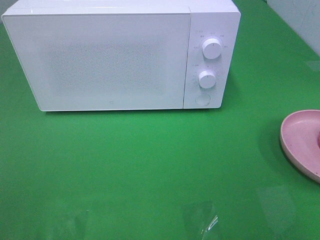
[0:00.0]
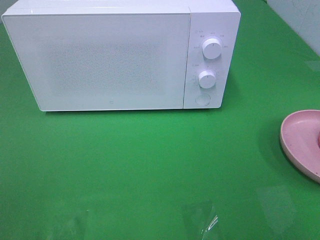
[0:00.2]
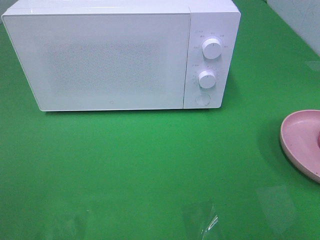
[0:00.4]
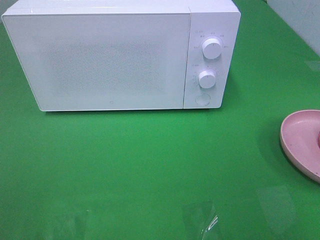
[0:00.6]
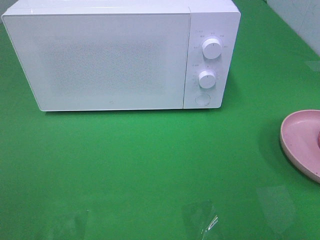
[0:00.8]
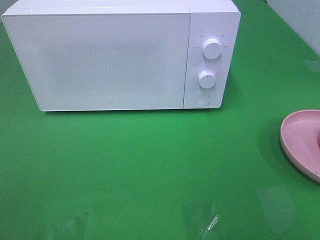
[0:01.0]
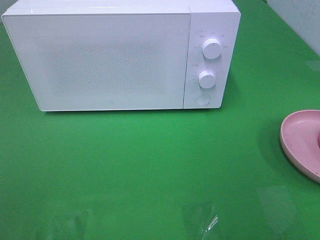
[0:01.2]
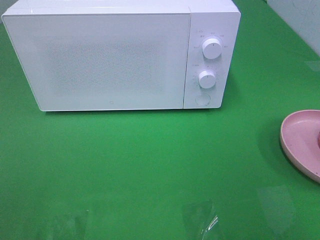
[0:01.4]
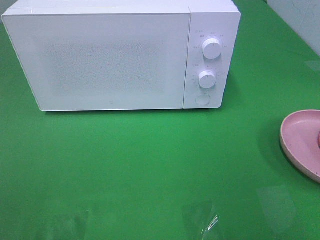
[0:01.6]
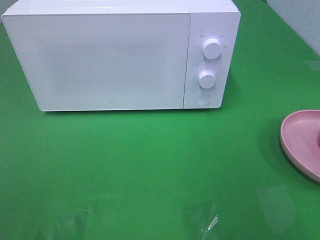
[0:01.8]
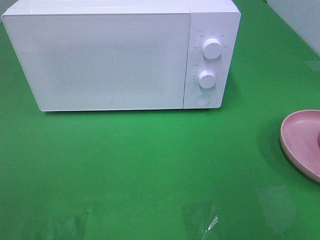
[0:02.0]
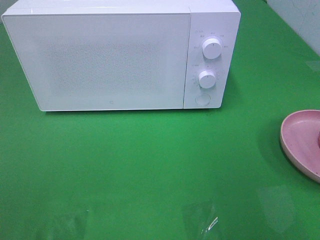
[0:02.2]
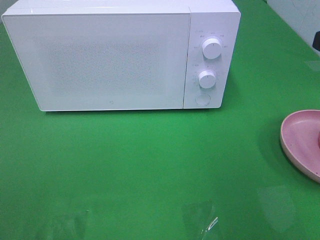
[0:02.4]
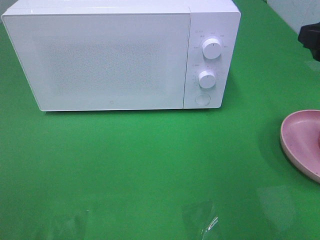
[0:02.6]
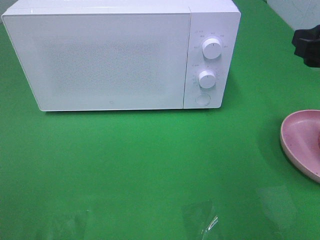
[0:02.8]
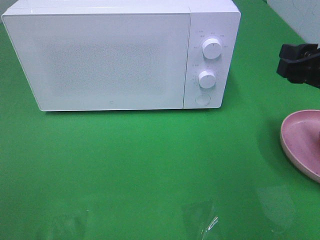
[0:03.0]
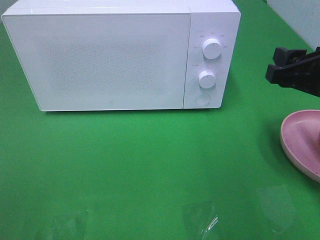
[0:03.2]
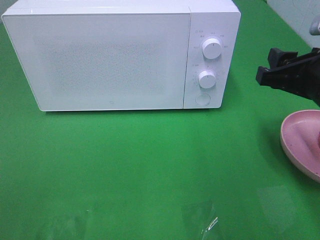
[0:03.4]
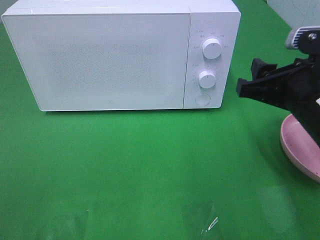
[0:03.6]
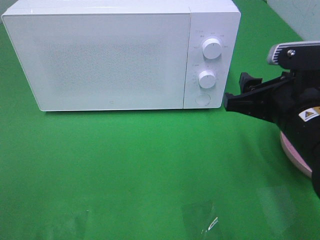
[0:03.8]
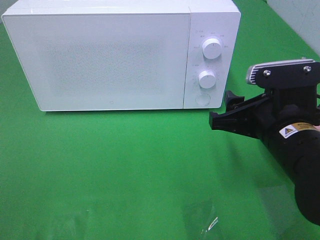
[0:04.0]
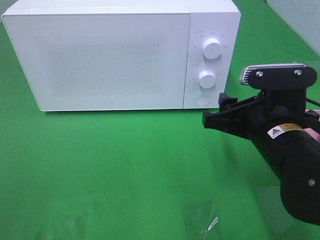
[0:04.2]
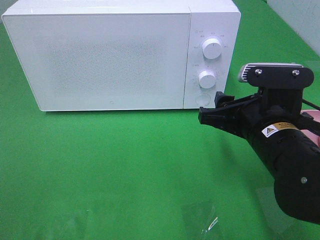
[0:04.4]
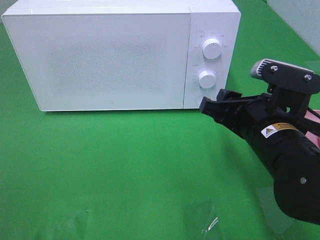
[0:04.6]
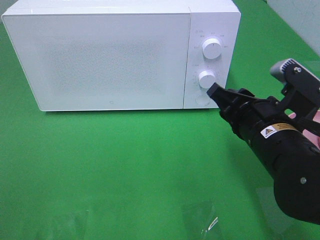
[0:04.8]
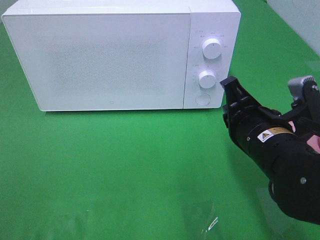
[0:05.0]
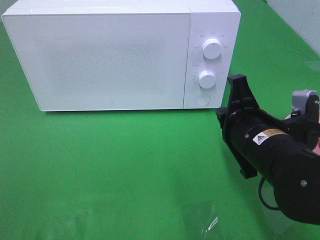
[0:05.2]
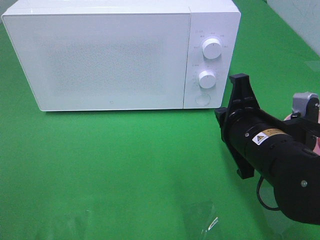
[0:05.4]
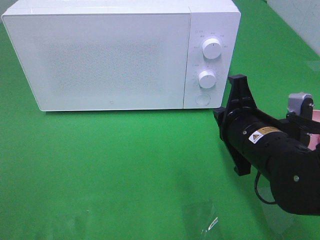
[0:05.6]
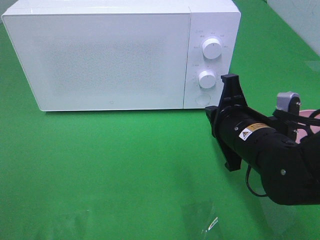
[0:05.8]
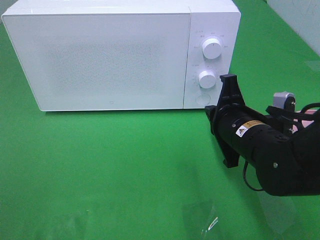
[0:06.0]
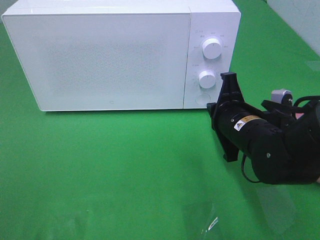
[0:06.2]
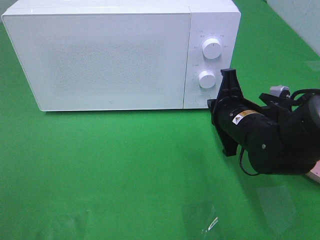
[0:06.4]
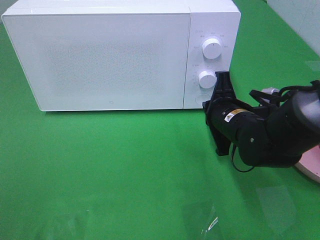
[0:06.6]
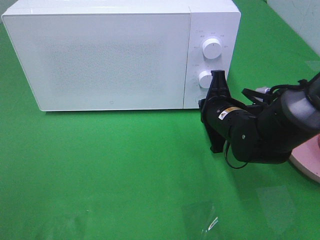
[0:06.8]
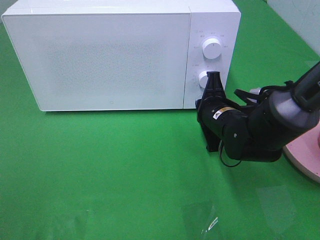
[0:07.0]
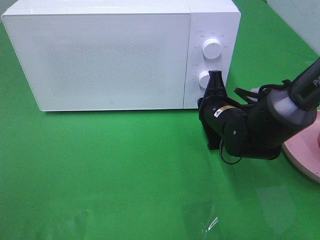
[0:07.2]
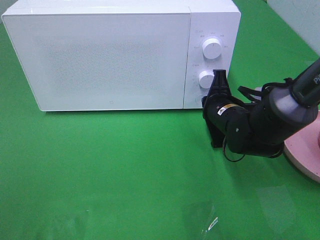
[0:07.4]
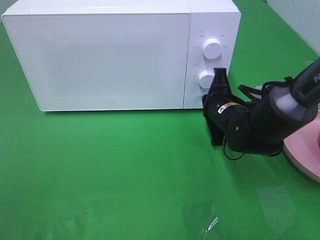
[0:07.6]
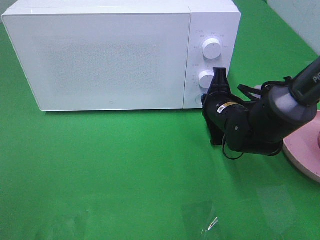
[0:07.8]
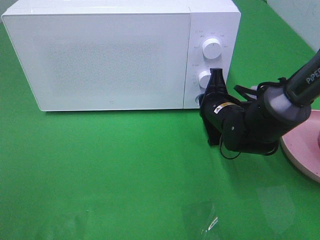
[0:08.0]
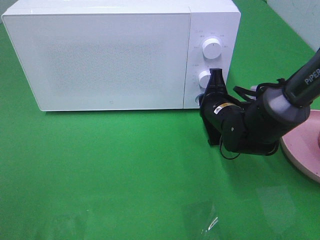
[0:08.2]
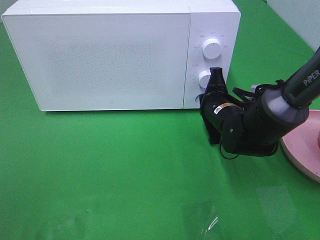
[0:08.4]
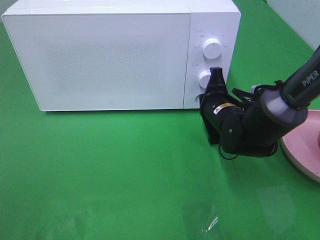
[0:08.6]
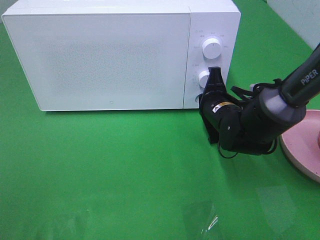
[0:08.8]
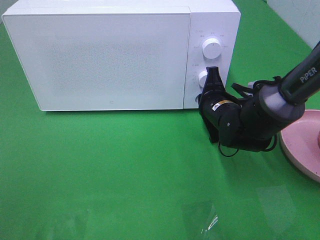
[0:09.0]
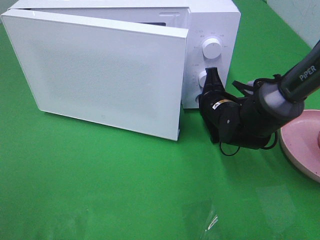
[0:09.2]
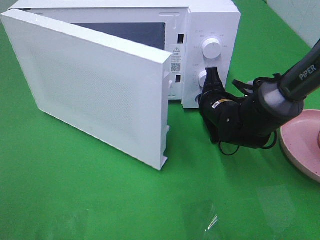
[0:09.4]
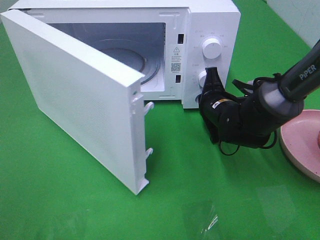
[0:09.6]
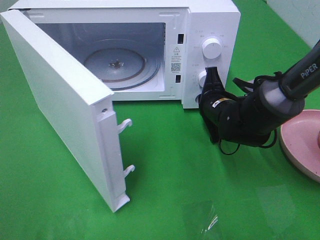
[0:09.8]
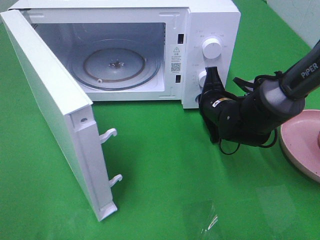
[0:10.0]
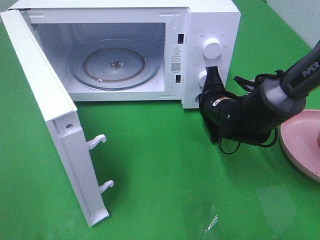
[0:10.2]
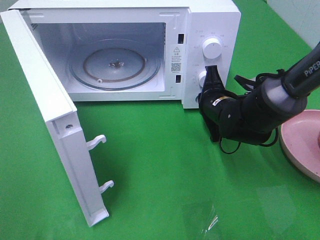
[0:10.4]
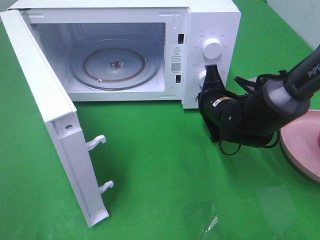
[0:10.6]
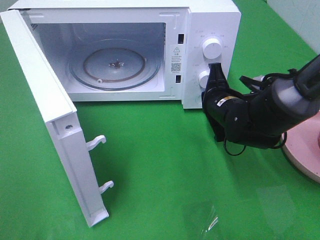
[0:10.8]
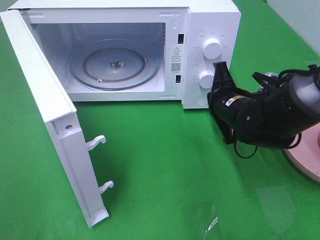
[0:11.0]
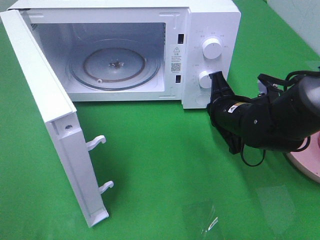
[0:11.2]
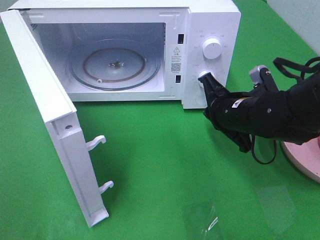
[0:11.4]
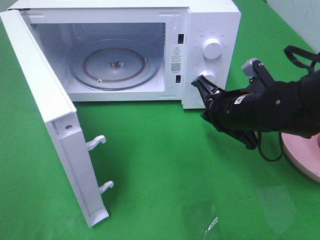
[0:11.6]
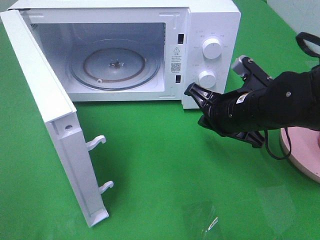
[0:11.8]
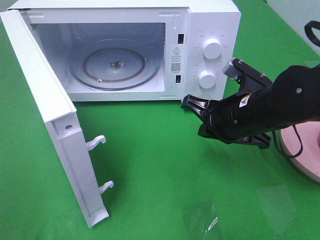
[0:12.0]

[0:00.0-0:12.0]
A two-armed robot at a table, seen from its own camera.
Task of the whole recording: Heat the burger.
Step, 0:00.0 to 0:07.8: Right hand: press the switch.
0:01.6 to 0:03.0: The right gripper shifts roughly 15 cm forward and downward.
0:03.0 to 0:04.4: The right gripper travels to the left and downward by approximately 15 cm.
0:04.4 to 0:06.0: The right gripper changes place by some 5 cm, and closes its fingers.
0:06.0 to 0:07.6: The right gripper moves forward, about 10 cm.
0:07.6 to 0:09.0: The grippers make only small movements.
0:10.4 to 0:12.0: The right gripper goes some 10 cm backward and upward.

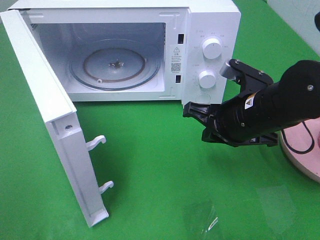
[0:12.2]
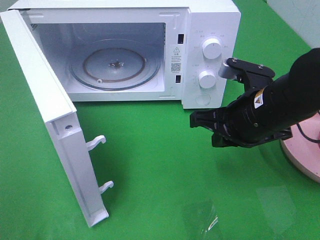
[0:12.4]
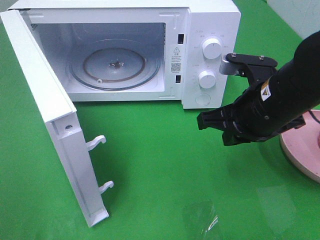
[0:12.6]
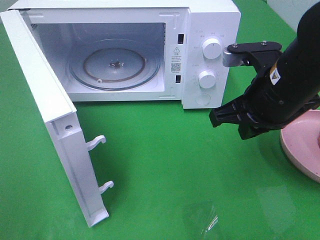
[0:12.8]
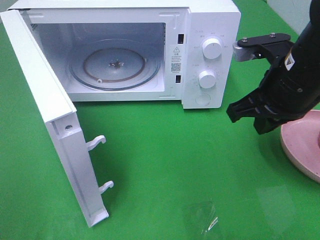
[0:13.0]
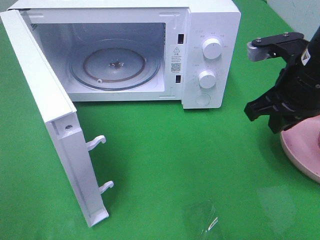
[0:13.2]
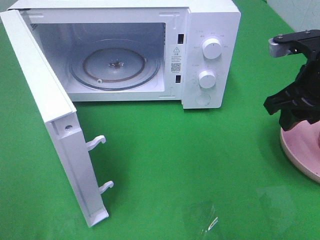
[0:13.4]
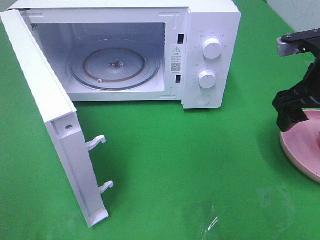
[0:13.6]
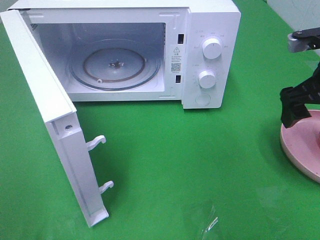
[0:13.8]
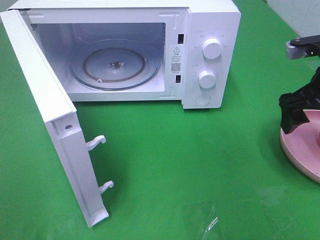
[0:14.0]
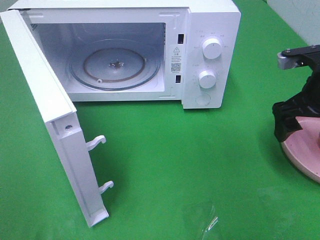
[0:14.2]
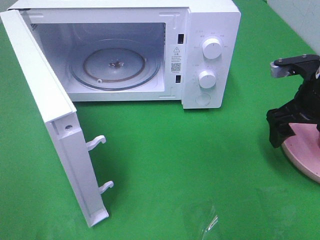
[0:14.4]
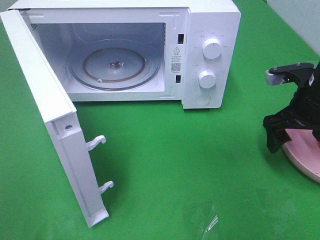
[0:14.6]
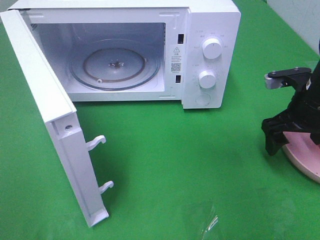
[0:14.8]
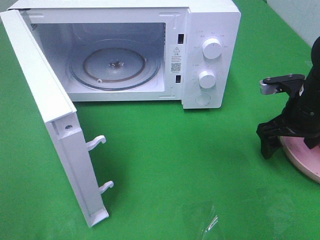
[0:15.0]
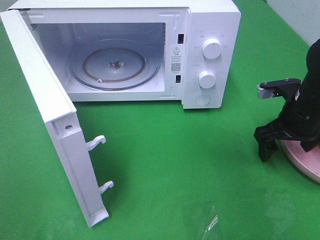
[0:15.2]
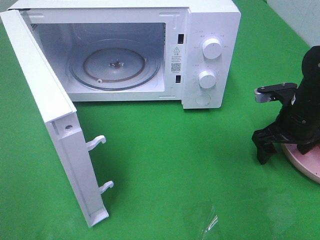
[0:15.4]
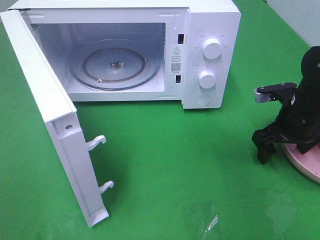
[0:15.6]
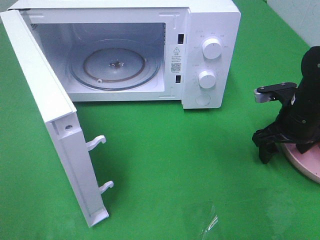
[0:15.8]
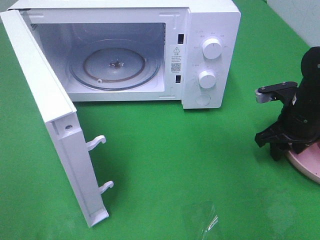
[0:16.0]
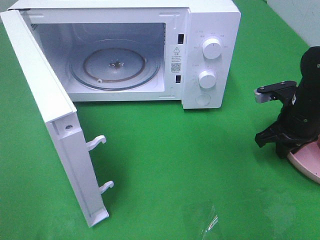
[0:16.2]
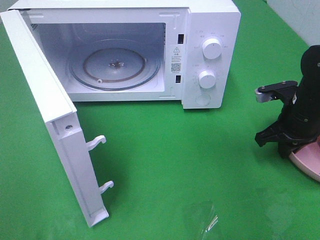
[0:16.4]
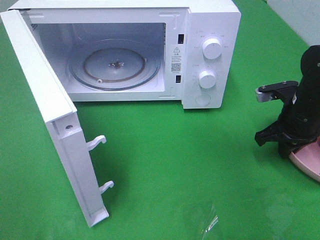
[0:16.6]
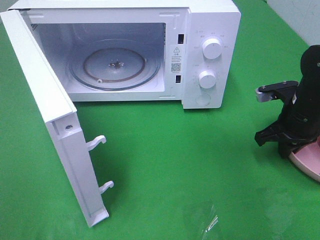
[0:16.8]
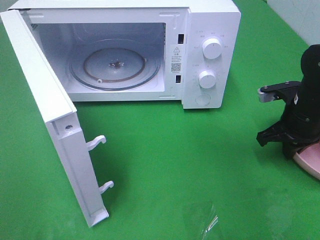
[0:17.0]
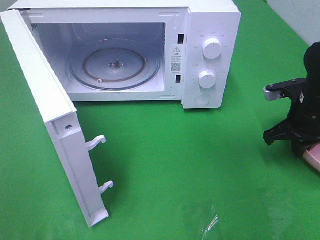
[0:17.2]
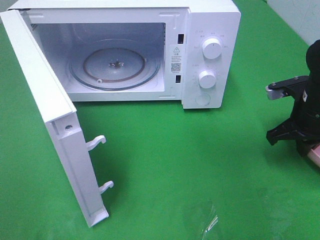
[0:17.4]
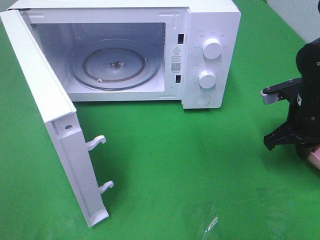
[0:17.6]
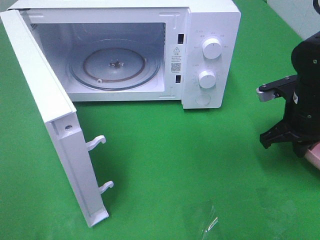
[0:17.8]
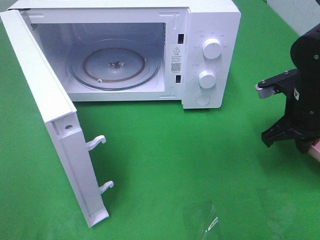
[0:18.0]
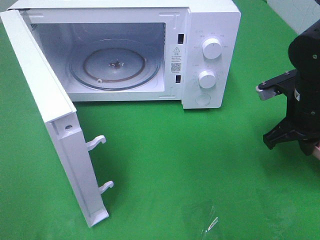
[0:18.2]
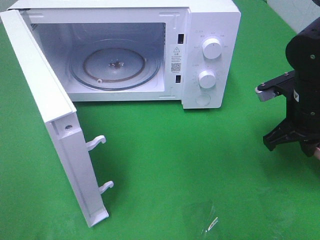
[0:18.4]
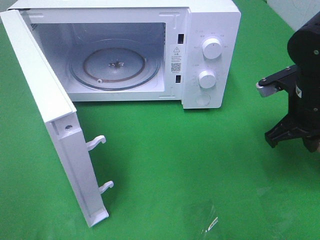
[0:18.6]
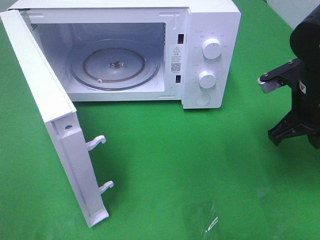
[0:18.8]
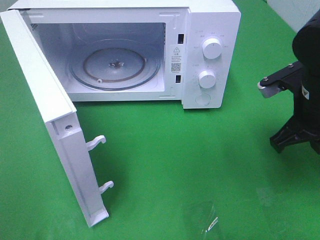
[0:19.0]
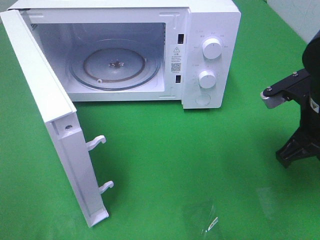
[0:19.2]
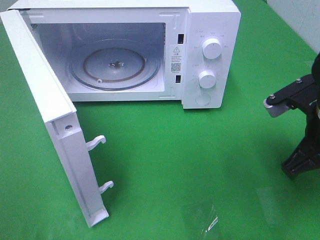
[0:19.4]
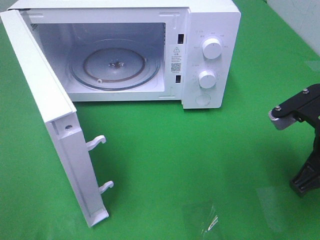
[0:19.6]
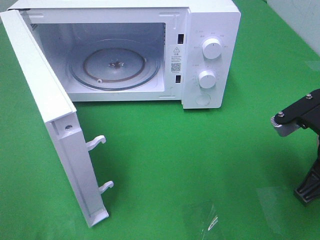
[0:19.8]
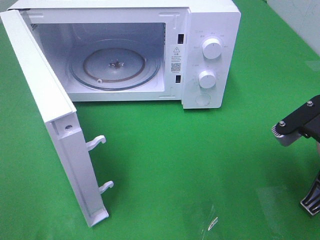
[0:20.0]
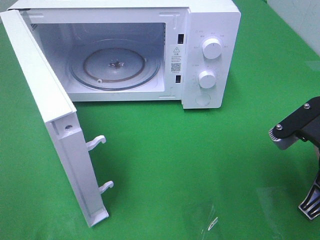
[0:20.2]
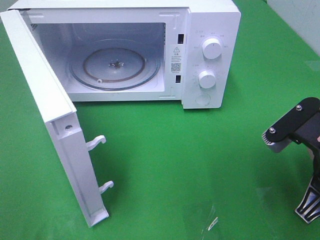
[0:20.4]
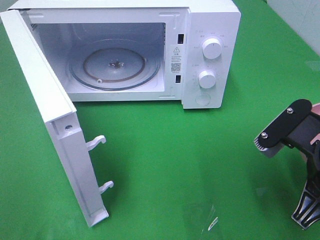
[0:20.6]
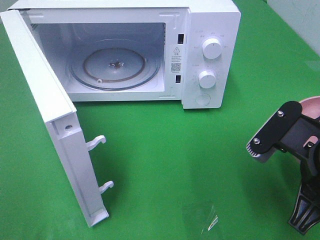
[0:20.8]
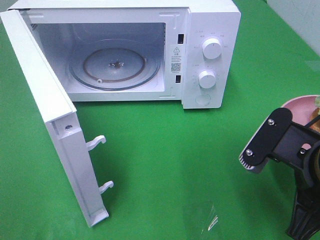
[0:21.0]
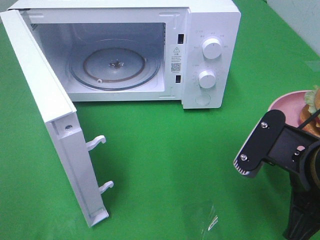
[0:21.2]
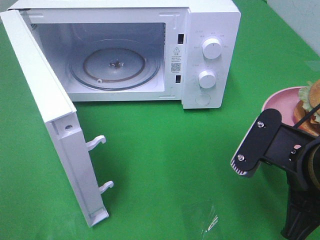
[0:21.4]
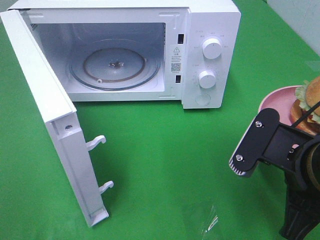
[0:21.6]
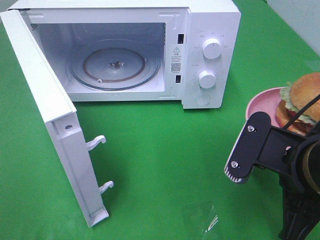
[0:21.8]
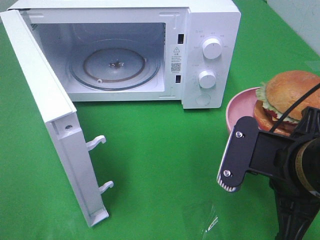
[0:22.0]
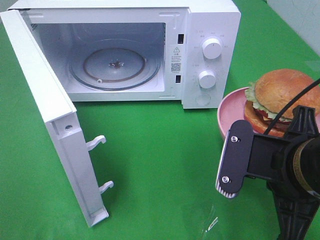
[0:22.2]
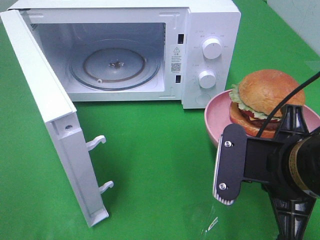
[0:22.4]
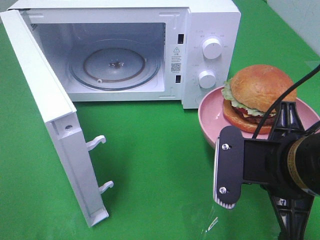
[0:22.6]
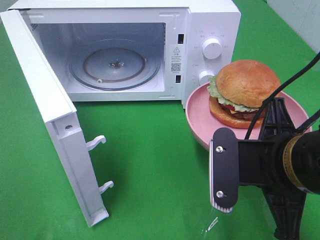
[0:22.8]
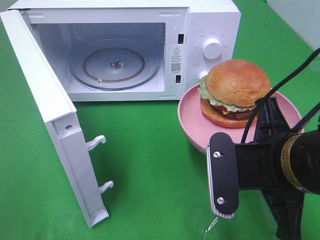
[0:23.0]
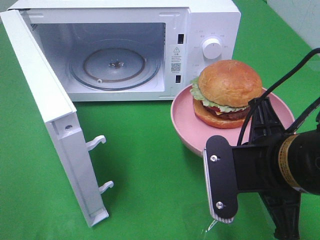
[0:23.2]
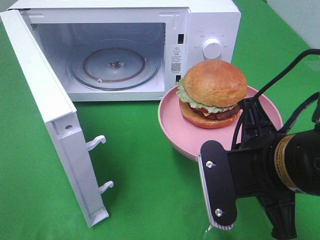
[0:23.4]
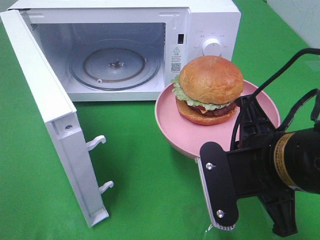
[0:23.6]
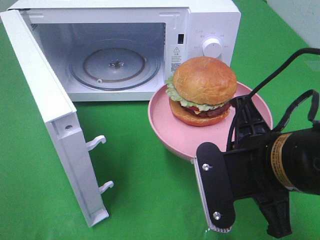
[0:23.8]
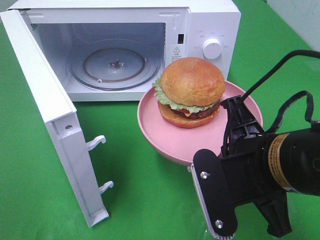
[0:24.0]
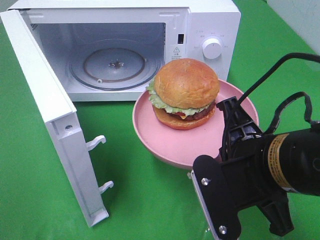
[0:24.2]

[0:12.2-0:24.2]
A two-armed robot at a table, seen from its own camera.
Task of the whole recording: Heat the burger.
Step, 0:12.2 to 0:16.2: Right hand: grab the plate with the hamburger.
0:12.2 to 0:13.8: The right gripper shifts approximately 15 cm to the right and upward, and opens its fingers.
0:13.8 to 0:15.2: The right gripper heads downward, covering roughly 10 cm.
0:15.2 to 0:16.6: The right gripper closes.
0:16.6 to 0:18.2: The right gripper shifts roughly 5 cm upward.
0:18.2 to 0:19.8: The right gripper goes about 10 cm backward.
0:19.8 to 0:21.2: The right gripper shifts approximately 5 cm to the left.
